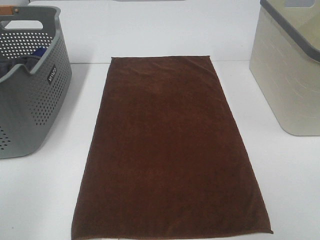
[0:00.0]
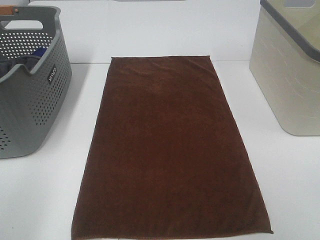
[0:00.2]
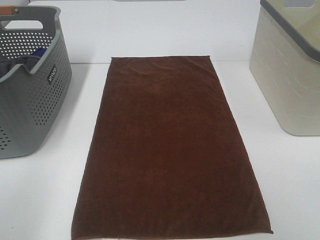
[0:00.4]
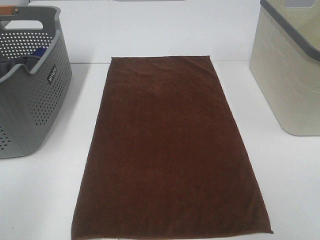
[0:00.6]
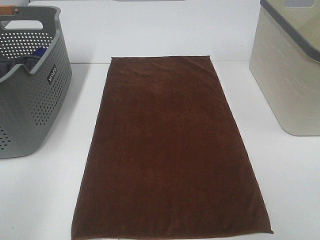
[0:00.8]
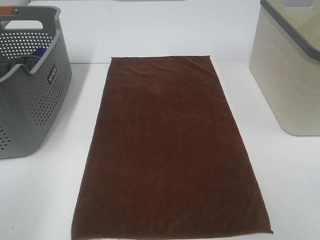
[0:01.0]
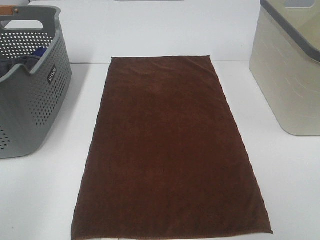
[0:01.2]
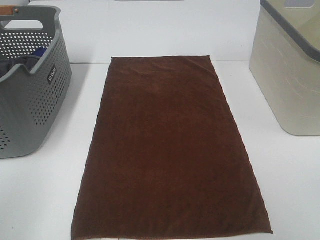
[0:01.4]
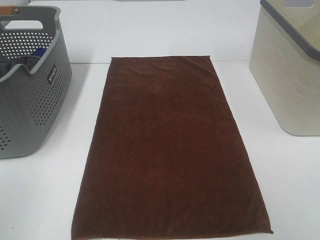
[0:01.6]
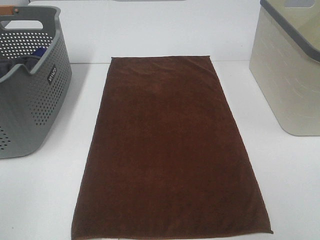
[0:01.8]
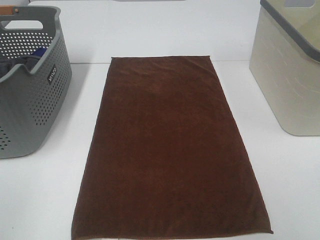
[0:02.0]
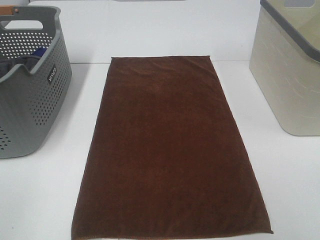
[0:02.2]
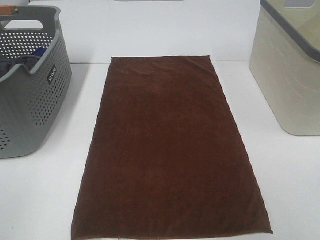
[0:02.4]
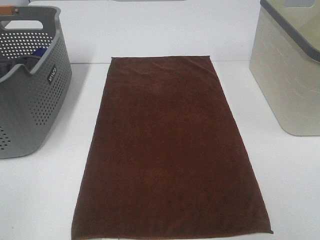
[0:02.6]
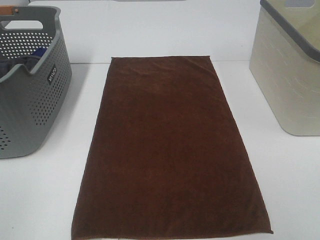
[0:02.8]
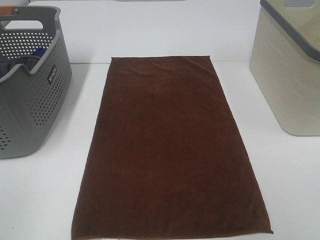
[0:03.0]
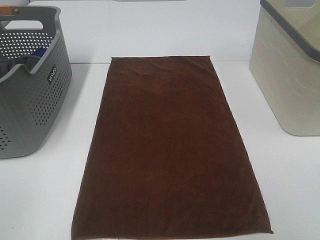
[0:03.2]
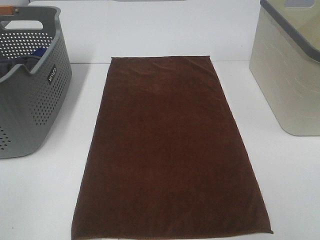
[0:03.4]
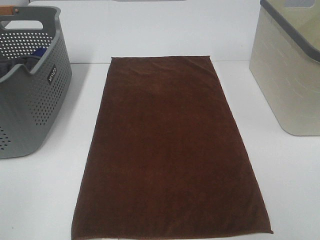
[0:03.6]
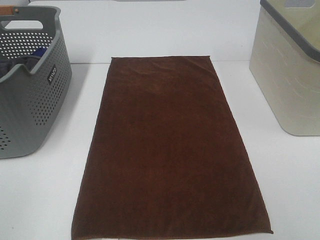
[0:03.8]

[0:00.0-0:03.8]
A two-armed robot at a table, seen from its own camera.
Task of the whole recording: Remove the towel and place it.
0:00.0 to 0:01.2: The two grippers keep their place.
0:02.6 to 0:03.8: The two grippers keep their place.

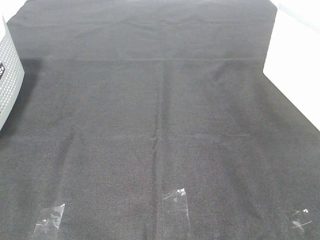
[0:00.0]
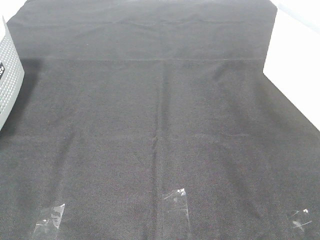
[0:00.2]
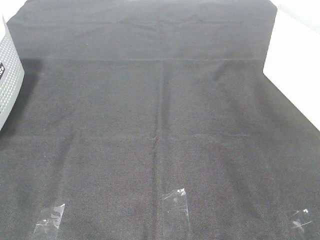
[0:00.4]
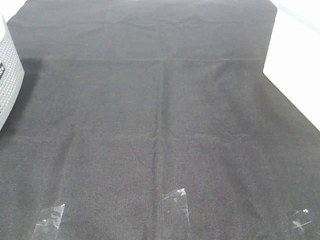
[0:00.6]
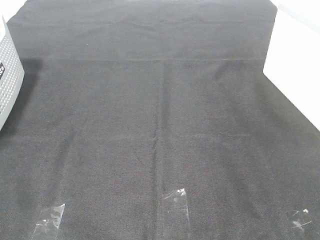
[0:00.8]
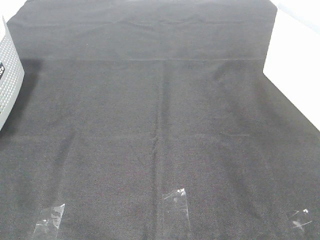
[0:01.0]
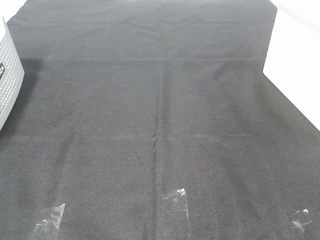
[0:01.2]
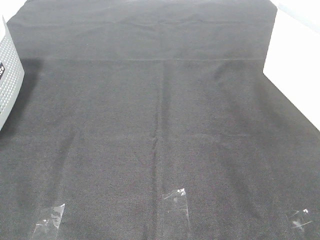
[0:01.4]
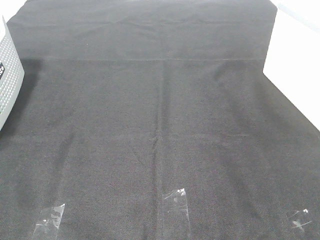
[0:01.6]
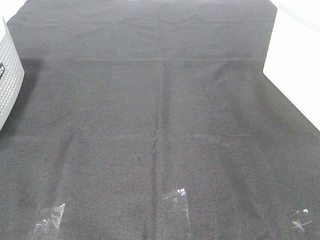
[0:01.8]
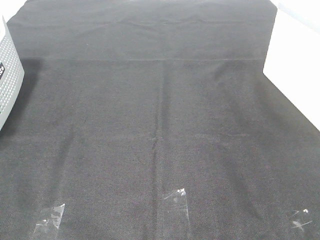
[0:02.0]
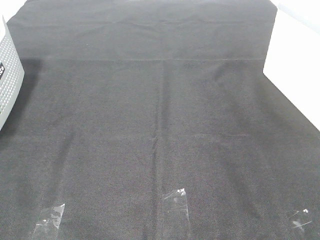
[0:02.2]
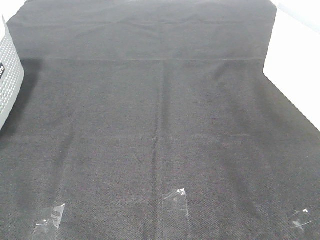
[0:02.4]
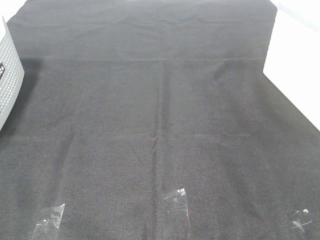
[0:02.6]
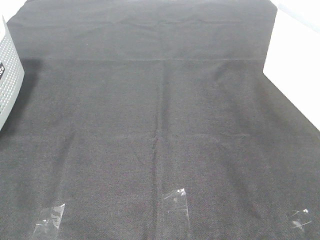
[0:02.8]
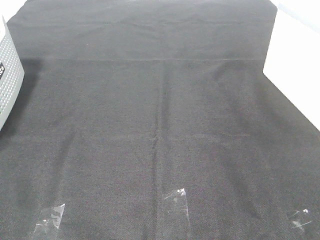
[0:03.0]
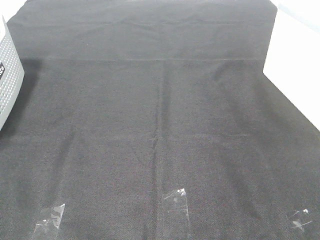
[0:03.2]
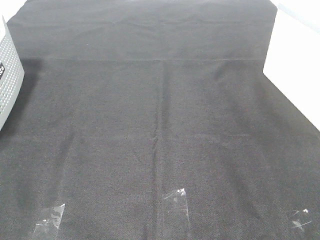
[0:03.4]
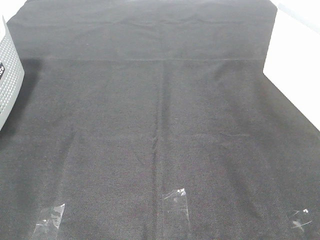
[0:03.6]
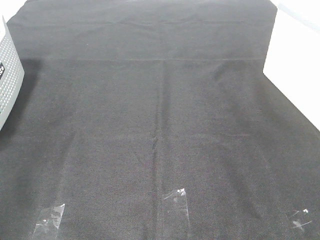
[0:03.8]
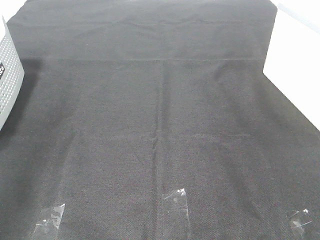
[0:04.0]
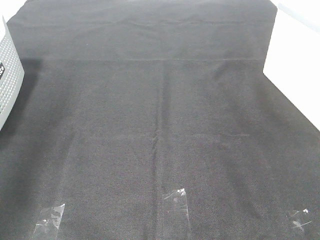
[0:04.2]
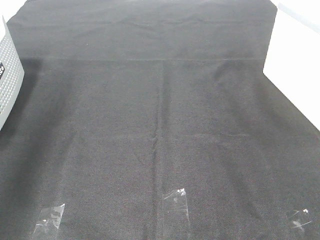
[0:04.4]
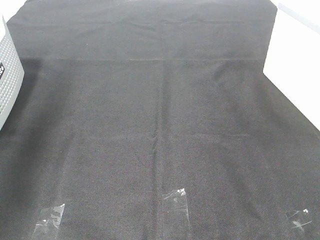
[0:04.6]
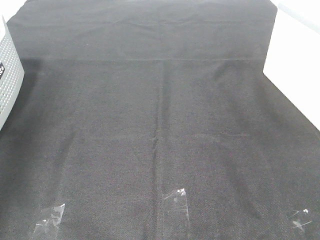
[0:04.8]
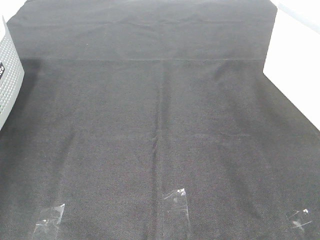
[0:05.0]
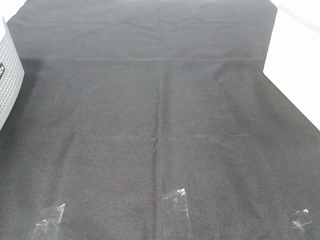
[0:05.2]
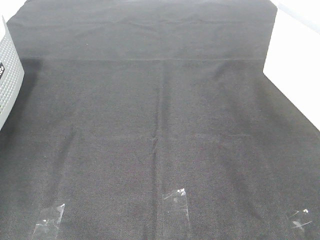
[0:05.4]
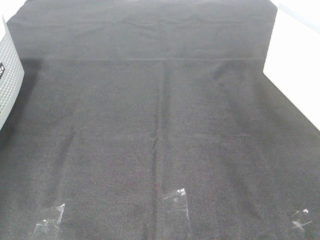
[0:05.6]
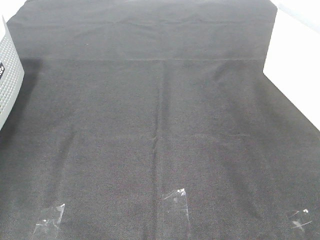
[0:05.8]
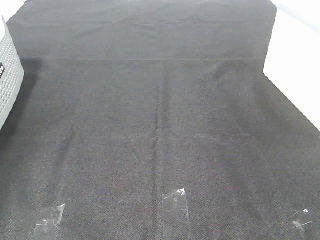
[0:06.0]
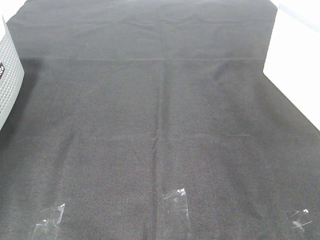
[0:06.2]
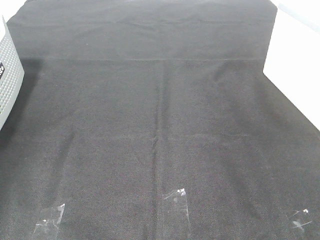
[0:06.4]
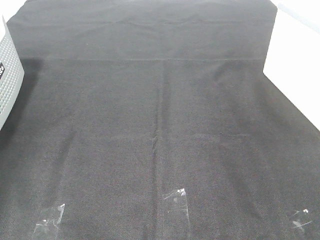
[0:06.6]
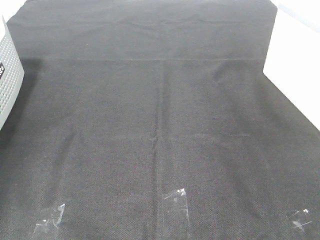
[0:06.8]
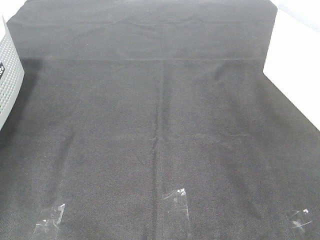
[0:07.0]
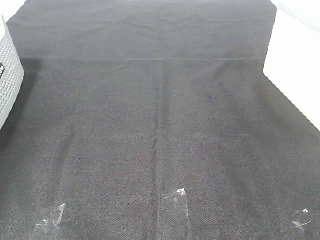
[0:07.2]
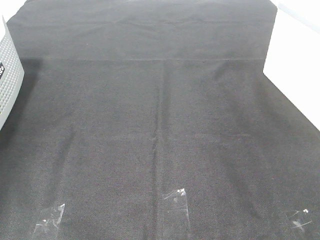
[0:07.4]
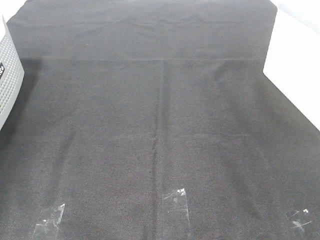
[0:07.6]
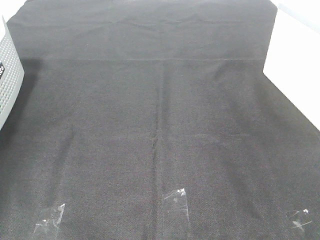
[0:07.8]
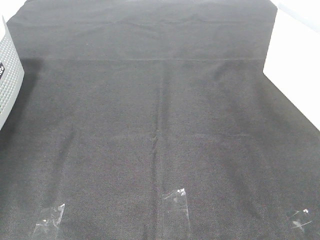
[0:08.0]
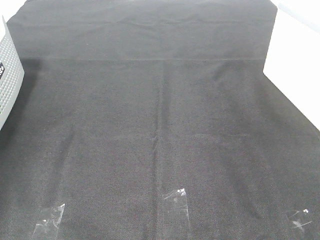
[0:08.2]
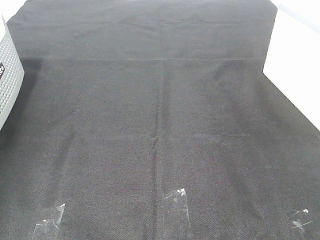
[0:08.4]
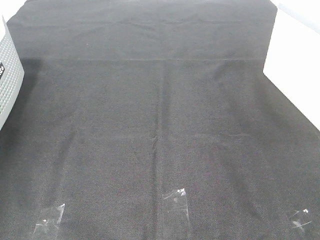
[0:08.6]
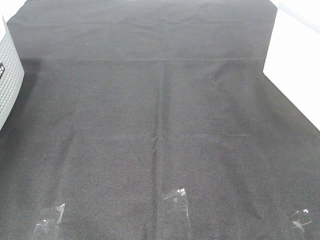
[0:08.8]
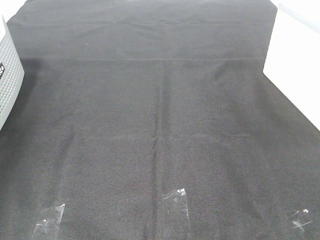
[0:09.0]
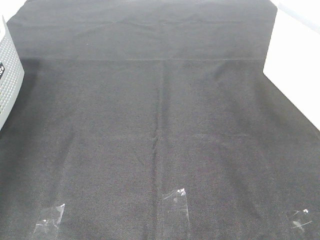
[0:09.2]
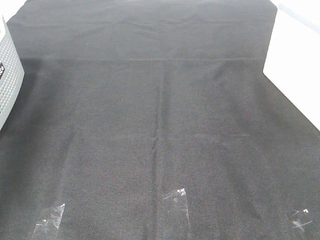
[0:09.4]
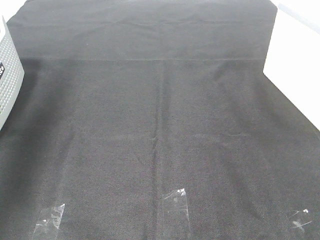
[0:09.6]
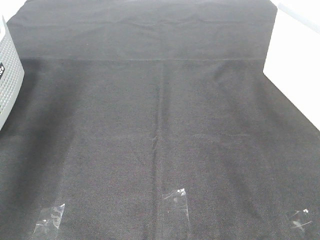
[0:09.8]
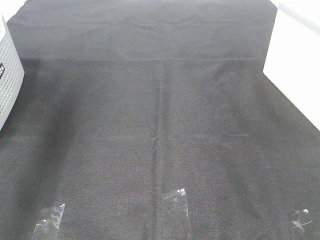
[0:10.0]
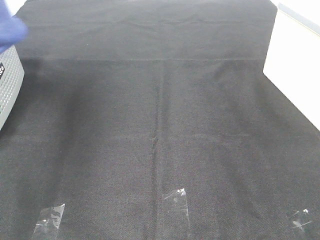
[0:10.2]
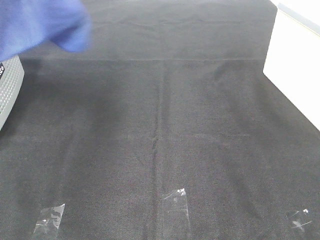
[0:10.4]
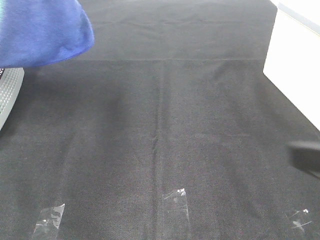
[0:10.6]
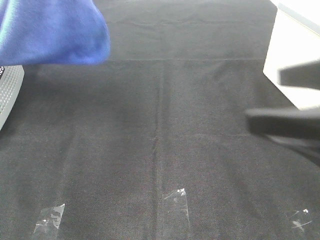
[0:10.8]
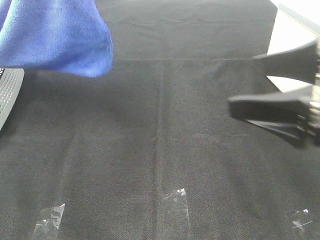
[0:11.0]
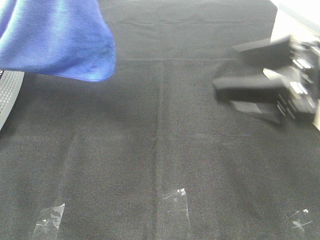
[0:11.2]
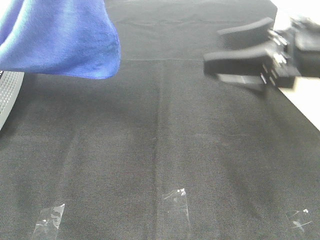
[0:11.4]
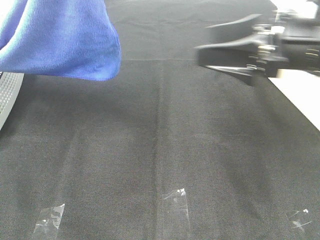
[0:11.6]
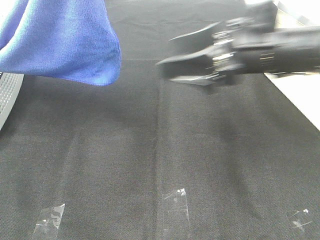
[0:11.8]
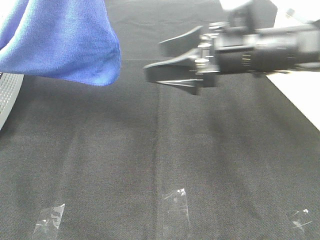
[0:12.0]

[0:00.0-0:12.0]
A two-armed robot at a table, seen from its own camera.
Task of the whole recording: Remove the towel and place it.
0:00.0 to 0:03.0: The two grippers keep their place.
0:03.0 to 0:04.4: The left gripper goes roughly 30 cm forward and upward.
0:04.4 to 0:06.0: The left gripper is displaced downward, forward and to the left by about 30 cm.
0:09.0 to 0:10.4: The left gripper shifts roughly 25 cm to the right and upward; the right gripper moves forward, approximately 5 cm.
0:10.4 to 0:12.0: The left gripper goes roughly 10 cm to the right, while the right gripper shifts approximately 30 cm forward and to the left.

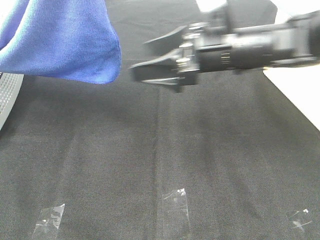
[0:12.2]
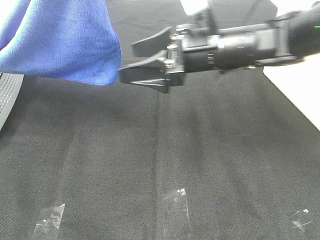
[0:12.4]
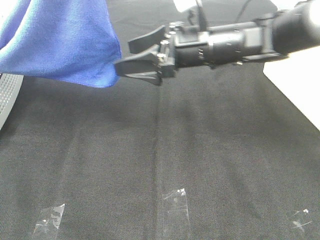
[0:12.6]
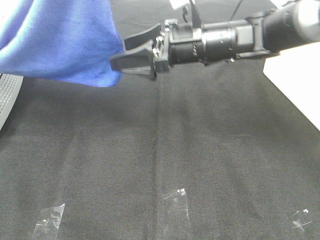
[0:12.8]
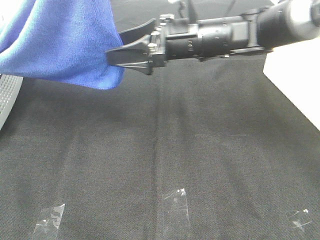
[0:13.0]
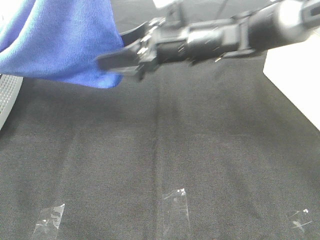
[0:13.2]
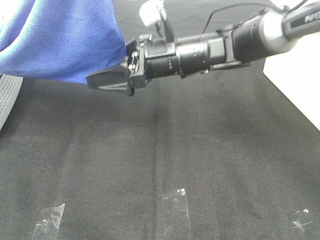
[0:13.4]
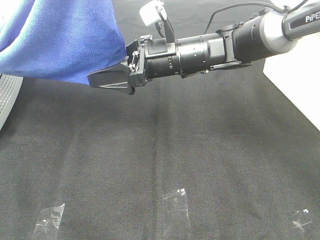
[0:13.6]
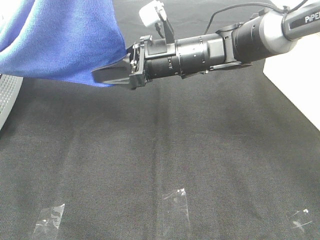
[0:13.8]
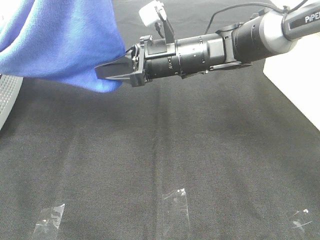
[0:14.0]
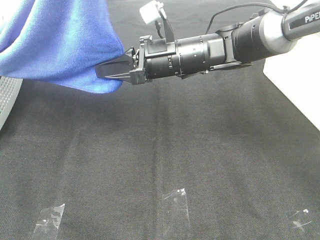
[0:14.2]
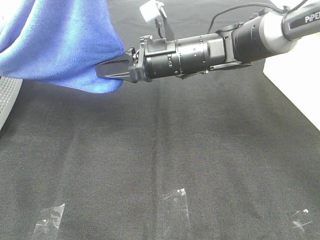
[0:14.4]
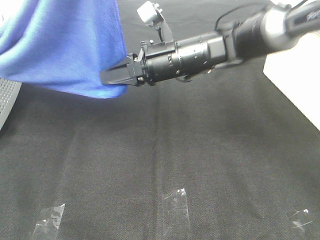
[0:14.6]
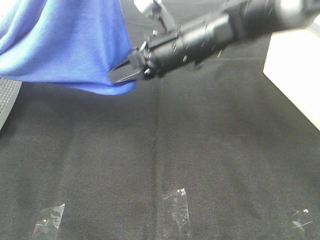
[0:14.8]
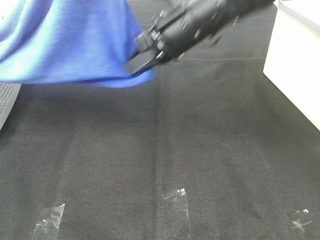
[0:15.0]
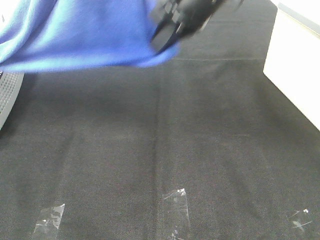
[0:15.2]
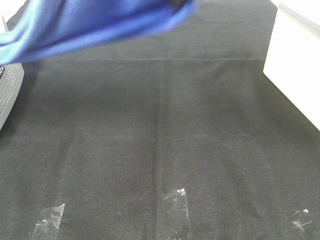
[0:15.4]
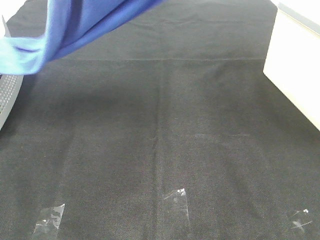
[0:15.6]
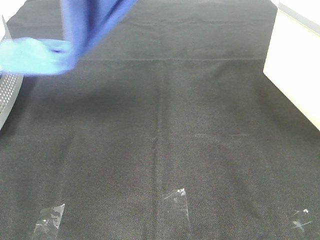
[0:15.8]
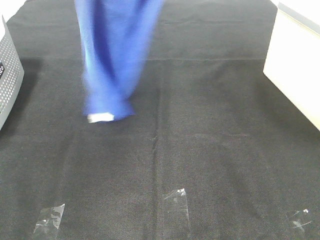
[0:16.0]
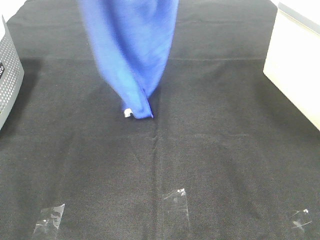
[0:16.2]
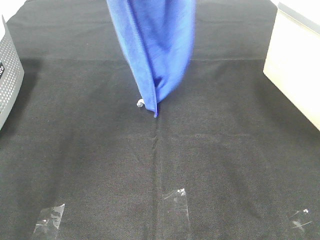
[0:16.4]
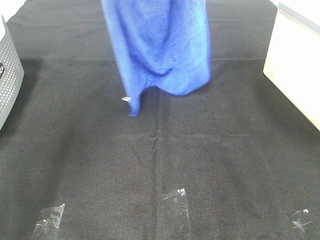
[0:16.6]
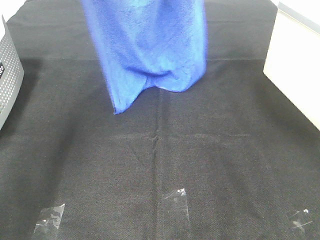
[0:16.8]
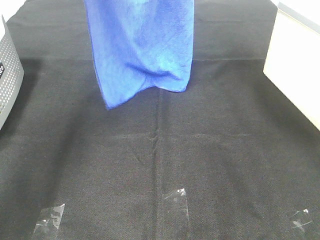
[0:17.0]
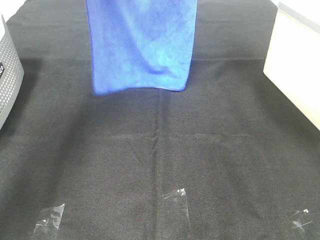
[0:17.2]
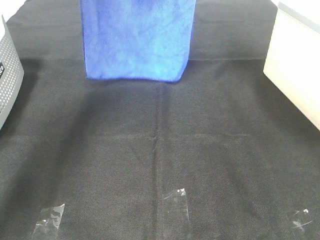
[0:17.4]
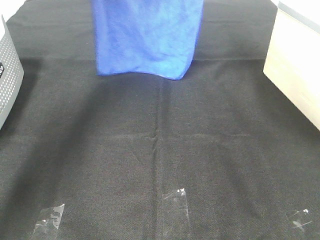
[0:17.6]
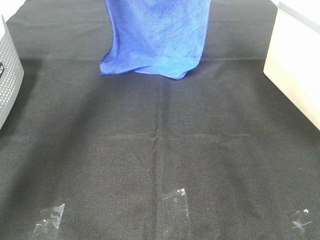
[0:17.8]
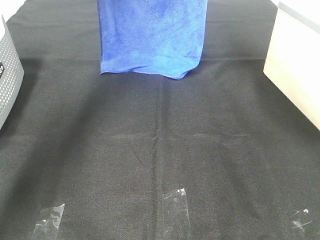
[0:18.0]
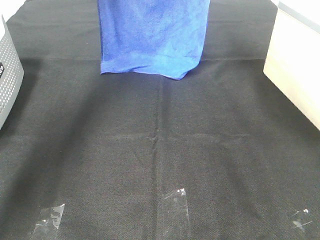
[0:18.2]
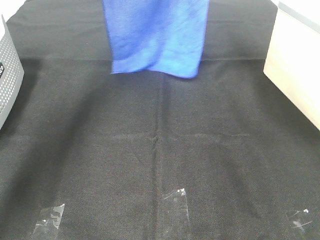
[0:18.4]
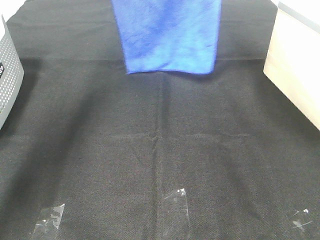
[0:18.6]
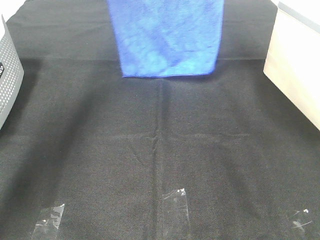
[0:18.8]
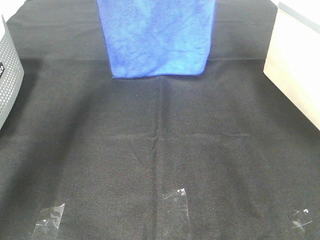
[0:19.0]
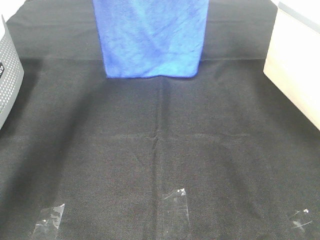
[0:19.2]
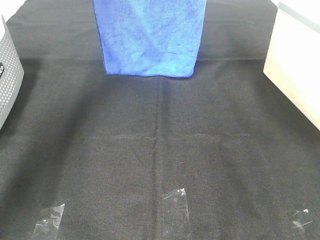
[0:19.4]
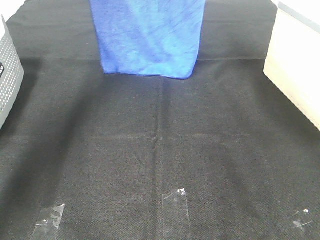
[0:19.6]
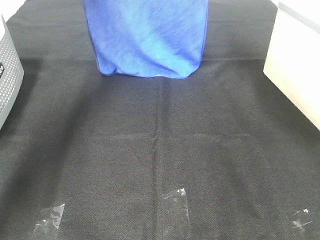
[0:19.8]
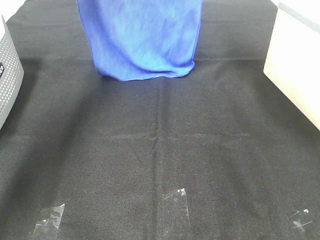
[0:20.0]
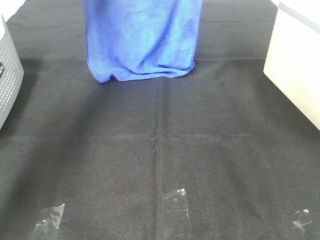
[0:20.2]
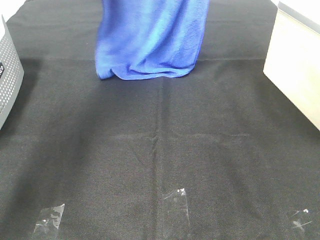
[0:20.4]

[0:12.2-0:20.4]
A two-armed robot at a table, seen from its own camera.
Task of the whole recording: Remove the towel and place it.
0:12.2 to 0:13.8: The right gripper moves to the left, about 5 cm, and closes up.
0:13.8 to 0:15.4: The right gripper is displaced upward by roughly 20 cm, and closes its fingers.
0:15.4 to 0:17.2: The left gripper moves forward, approximately 20 cm. The right gripper shifts about 10 cm forward and upward.
0:17.2 to 0:18.8: The grippers make only small movements.
